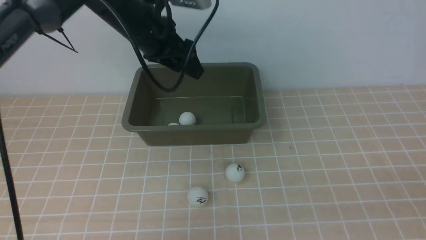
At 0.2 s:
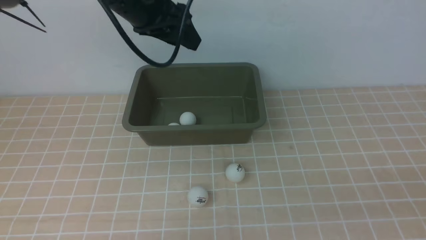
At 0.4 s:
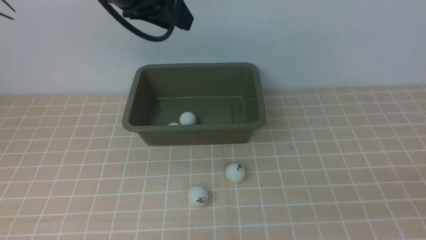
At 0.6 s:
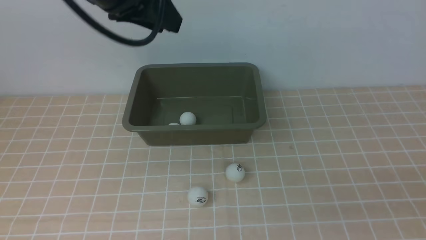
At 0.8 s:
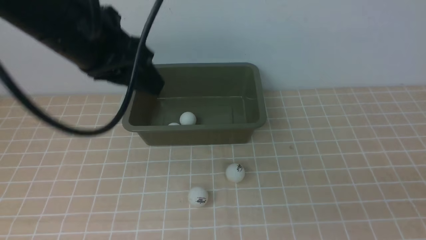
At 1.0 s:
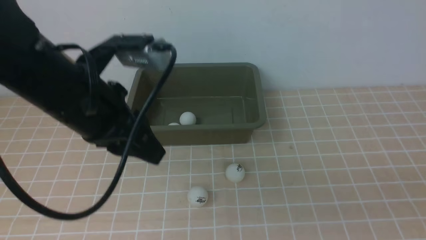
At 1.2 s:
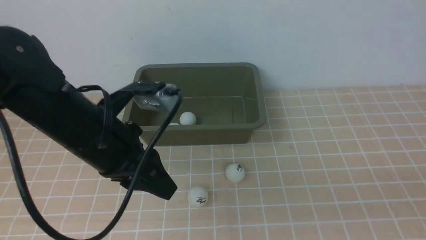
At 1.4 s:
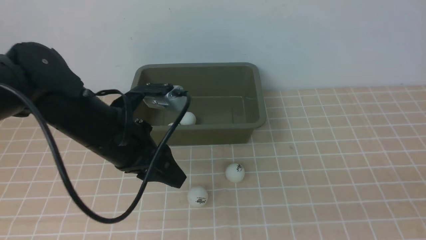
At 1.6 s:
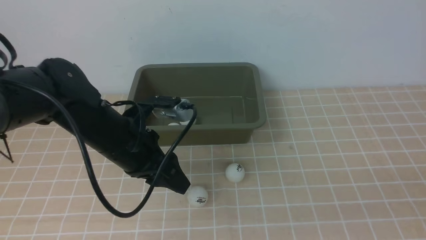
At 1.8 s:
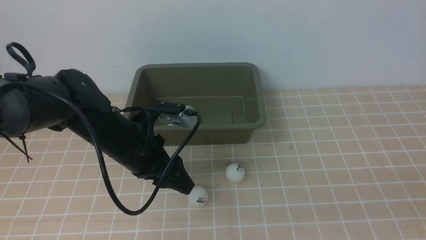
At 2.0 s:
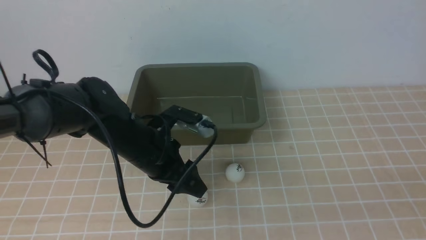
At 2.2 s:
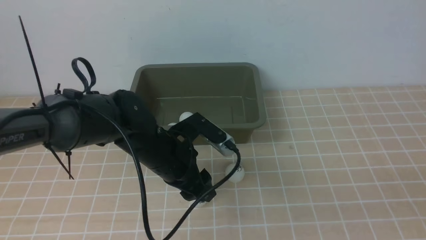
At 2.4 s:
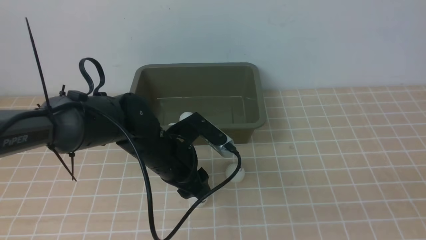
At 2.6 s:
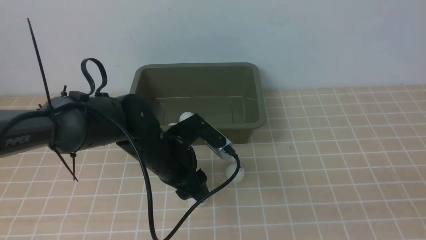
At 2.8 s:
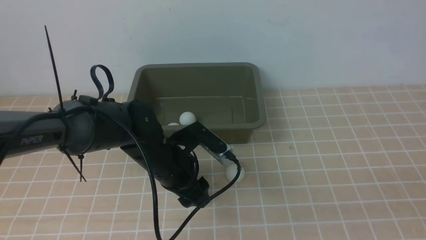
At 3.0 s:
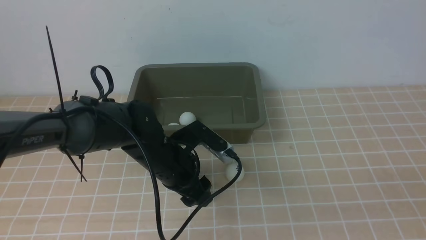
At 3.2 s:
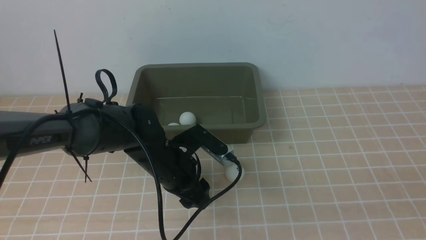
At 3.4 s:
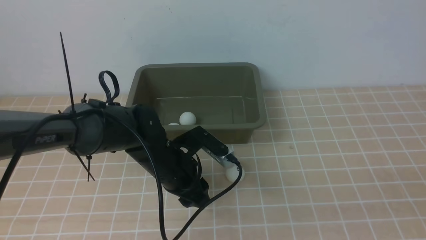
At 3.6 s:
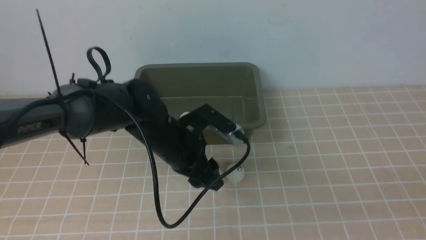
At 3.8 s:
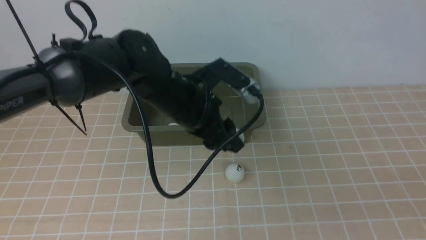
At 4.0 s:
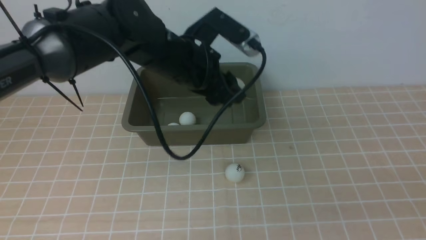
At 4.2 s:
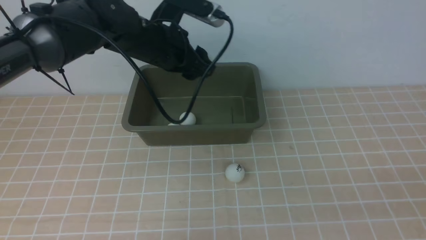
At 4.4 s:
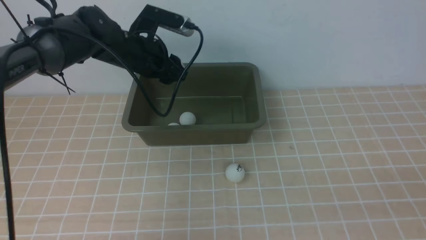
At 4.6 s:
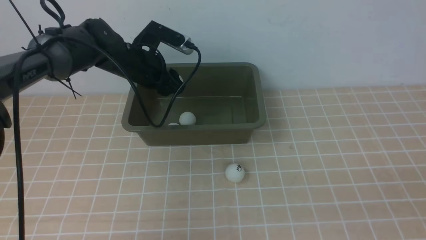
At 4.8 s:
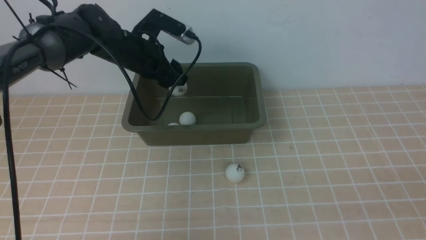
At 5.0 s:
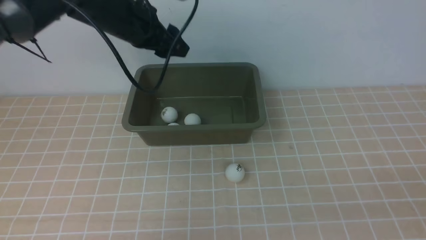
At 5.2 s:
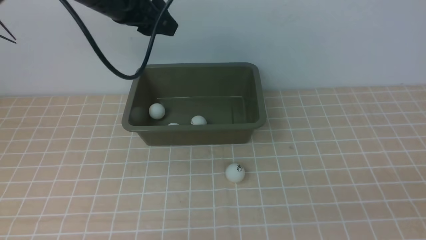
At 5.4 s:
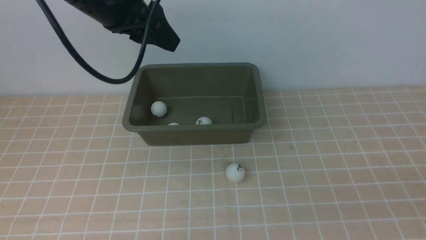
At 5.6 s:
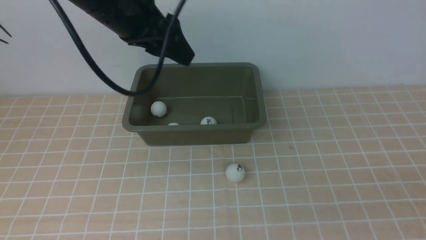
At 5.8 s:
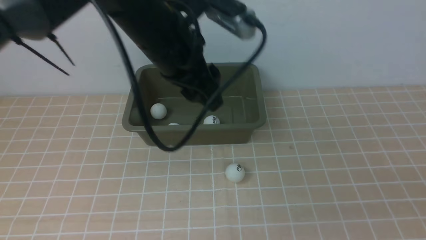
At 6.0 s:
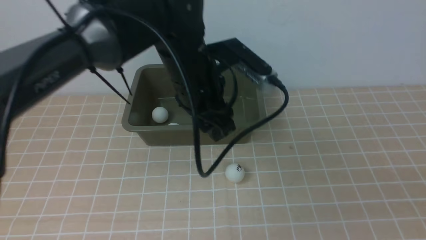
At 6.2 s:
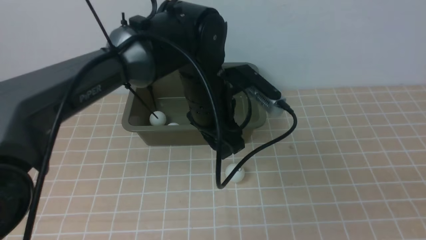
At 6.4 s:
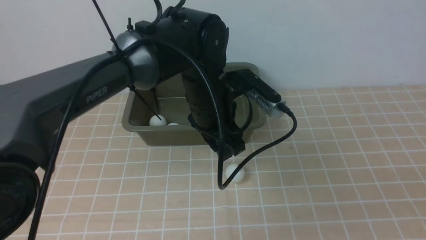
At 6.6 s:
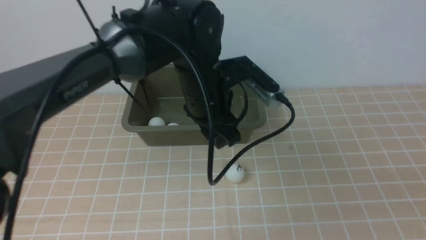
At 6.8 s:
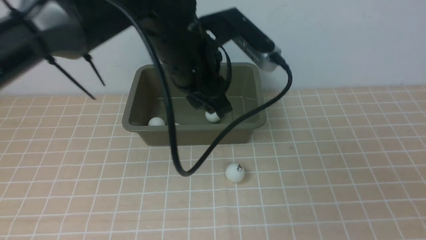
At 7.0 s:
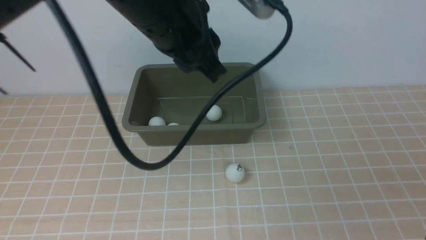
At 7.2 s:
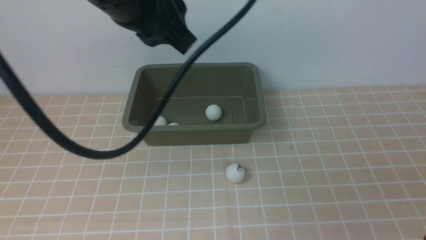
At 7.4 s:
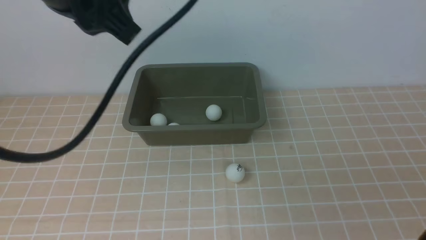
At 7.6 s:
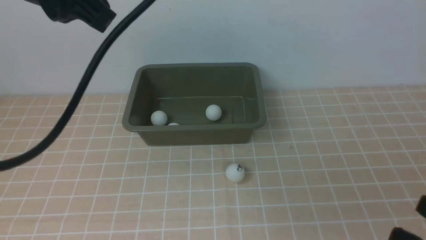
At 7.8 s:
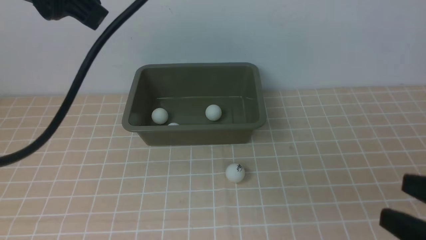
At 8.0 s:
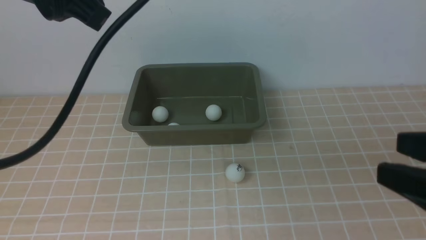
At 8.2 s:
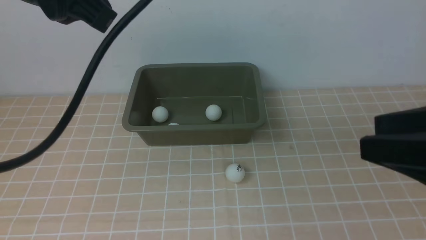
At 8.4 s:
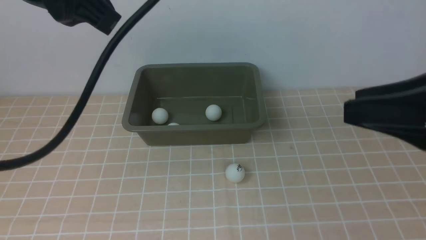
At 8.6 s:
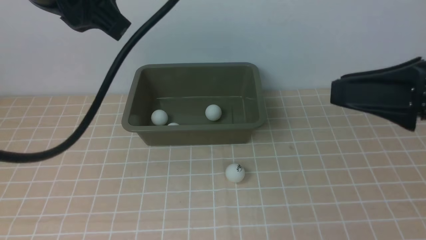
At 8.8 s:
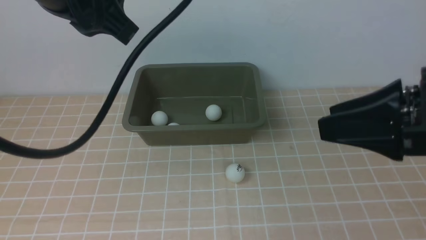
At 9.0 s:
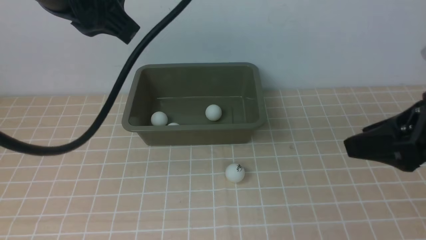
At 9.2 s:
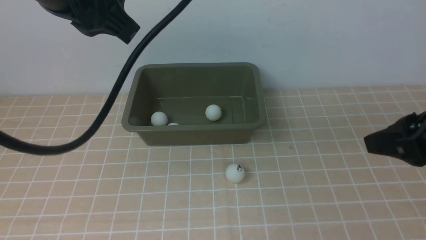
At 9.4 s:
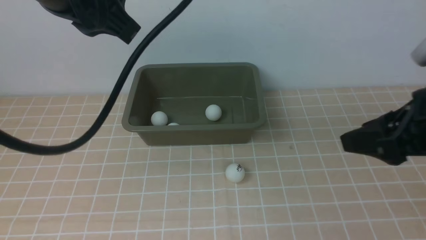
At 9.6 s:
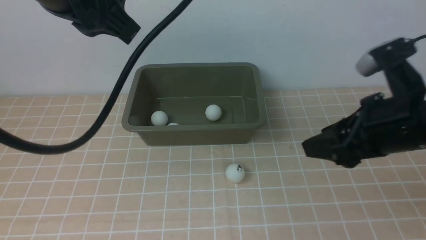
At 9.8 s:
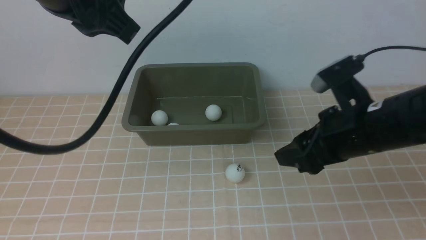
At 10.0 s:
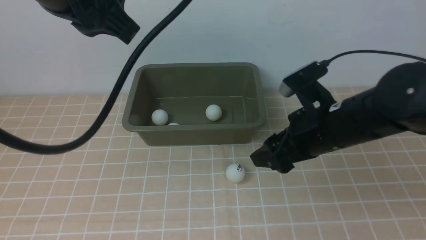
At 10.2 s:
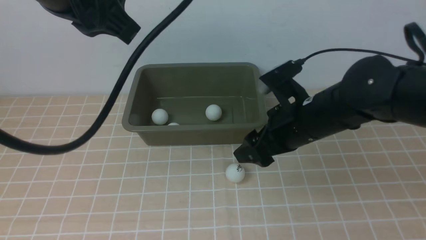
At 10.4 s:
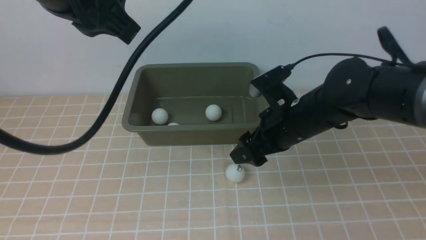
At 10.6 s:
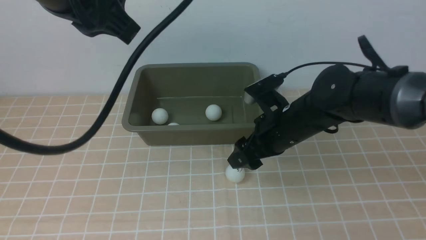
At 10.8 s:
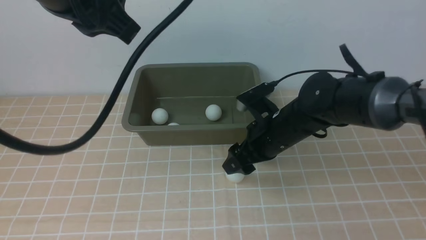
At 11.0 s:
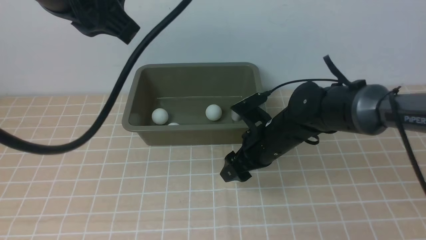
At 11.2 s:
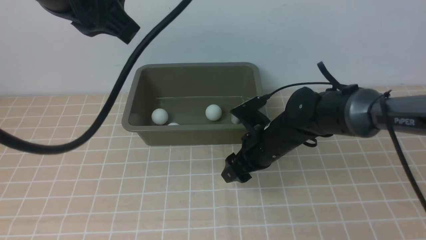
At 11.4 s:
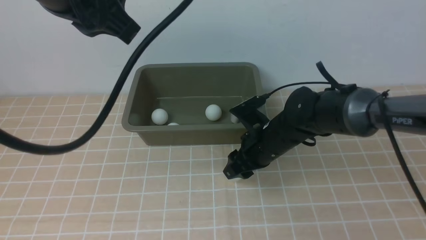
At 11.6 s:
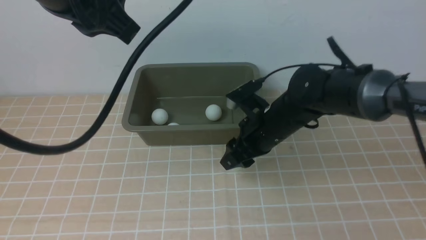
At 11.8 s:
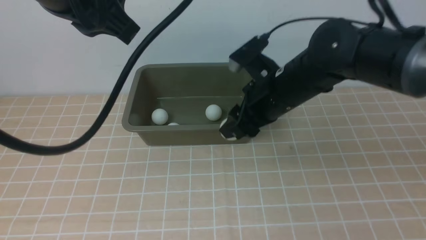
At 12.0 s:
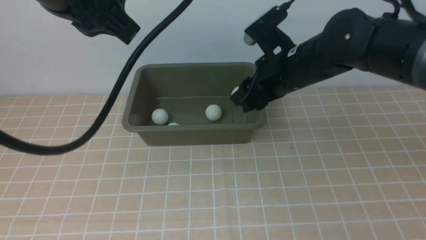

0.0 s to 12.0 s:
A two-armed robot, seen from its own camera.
Step, 0.0 to 3.8 s: use the left arm to clamp the table tennis ball closest to it.
Step, 4.0 to 5.2 s: use the left arm to put the table tennis ball into the box.
Step, 5.4 to 11.8 s: use the right arm to clamp the table tennis ball closest to it.
0.0 to 1.6 s: The left gripper goes roughly 15 cm backward and downward, and closes, then reopens.
1.6 to 3.0 s: The left gripper moves downward and to the right, approximately 10 cm.
3.0 to 4.4 s: The left gripper travels forward and upward by roughly 15 cm, and closes.
4.4 to 6.0 s: The left gripper goes some 15 cm backward and to the right, and reaches some 15 cm upward, then returns.
6.0 to 7.6 s: The left gripper shifts approximately 25 cm upward, to the left and backward, and closes up.
7.6 to 9.0 s: The right gripper heads forward, covering approximately 15 cm.
9.0 to 10.4 s: The right gripper is displaced to the left, forward and downward by about 20 cm, and opens.
10.4 to 12.0 s: The right gripper heads forward, covering roughly 5 cm, and closes up.

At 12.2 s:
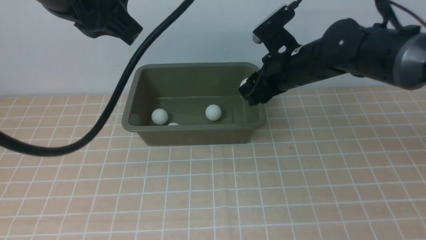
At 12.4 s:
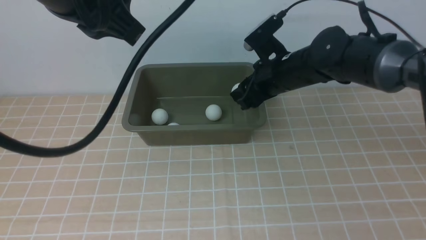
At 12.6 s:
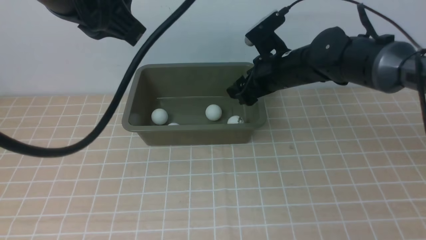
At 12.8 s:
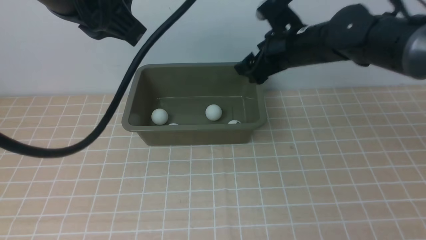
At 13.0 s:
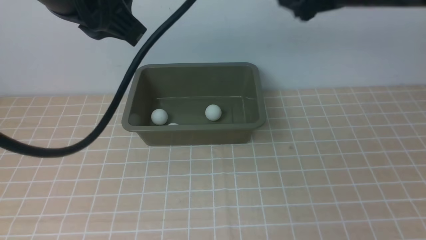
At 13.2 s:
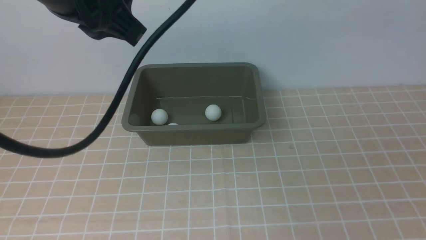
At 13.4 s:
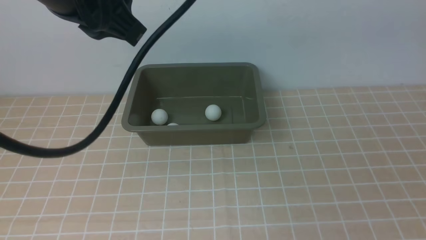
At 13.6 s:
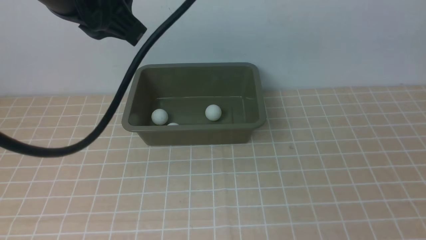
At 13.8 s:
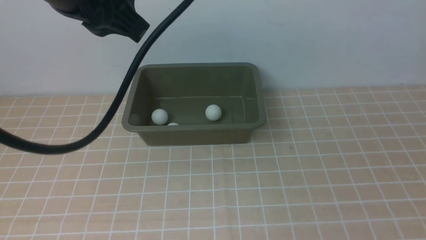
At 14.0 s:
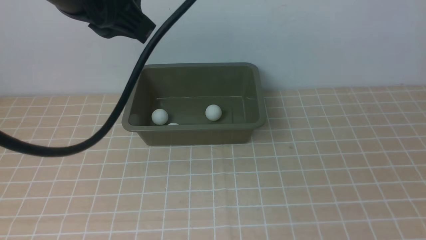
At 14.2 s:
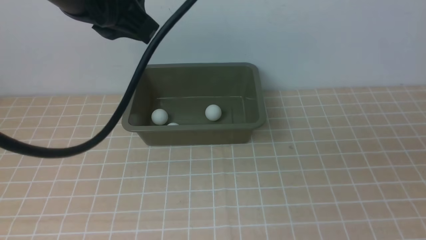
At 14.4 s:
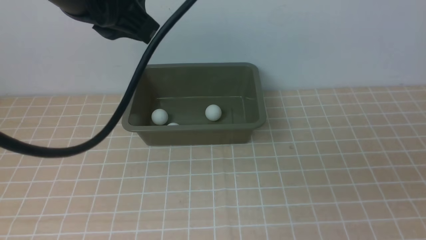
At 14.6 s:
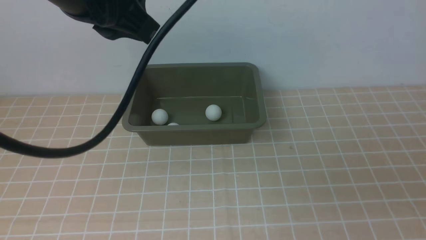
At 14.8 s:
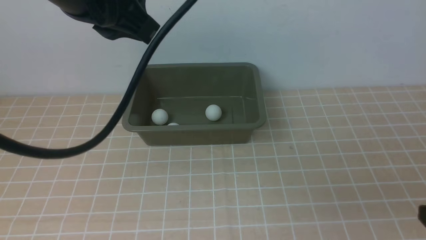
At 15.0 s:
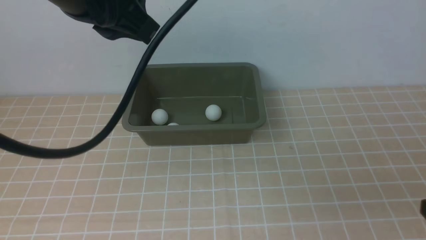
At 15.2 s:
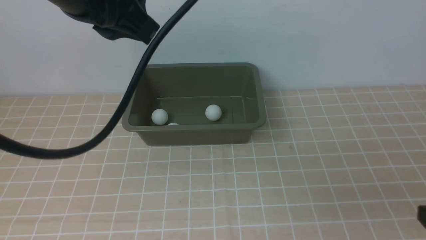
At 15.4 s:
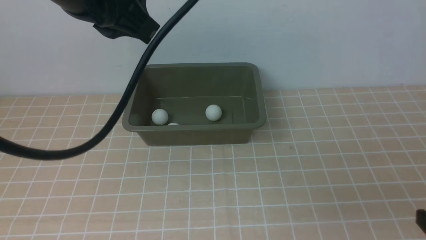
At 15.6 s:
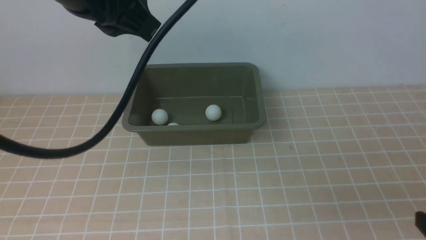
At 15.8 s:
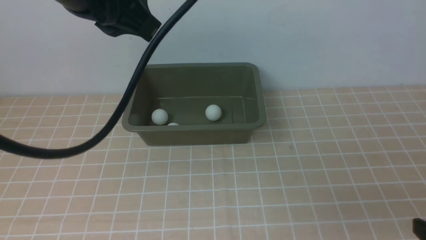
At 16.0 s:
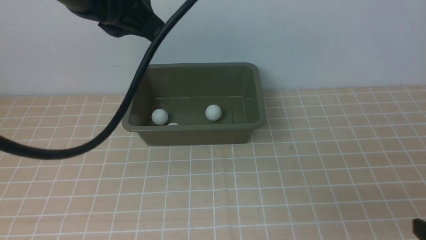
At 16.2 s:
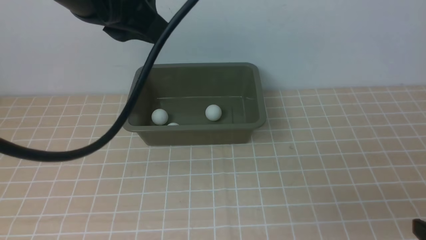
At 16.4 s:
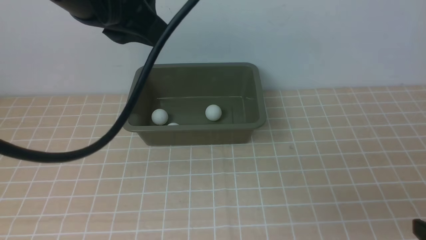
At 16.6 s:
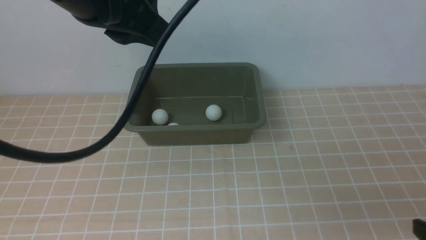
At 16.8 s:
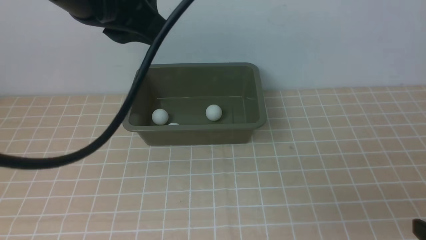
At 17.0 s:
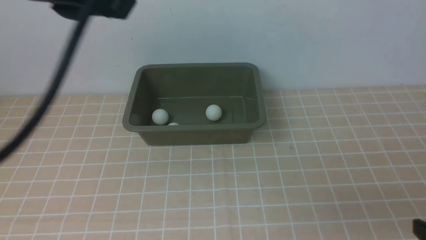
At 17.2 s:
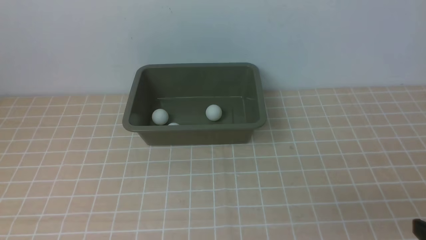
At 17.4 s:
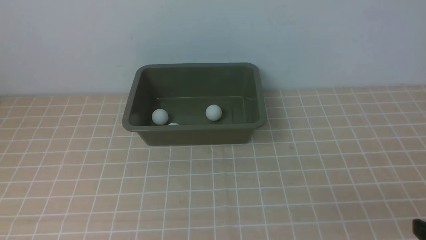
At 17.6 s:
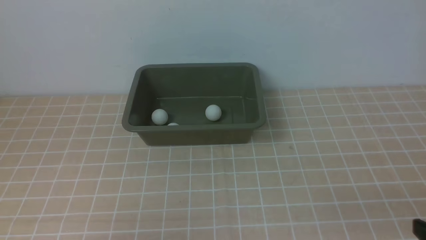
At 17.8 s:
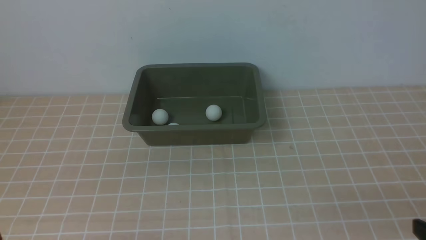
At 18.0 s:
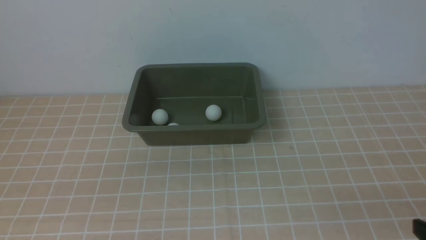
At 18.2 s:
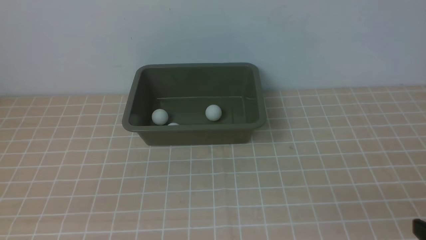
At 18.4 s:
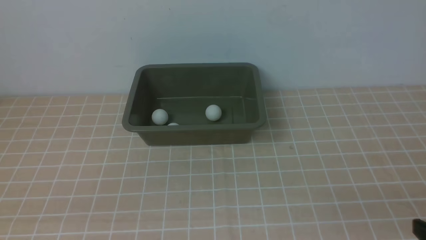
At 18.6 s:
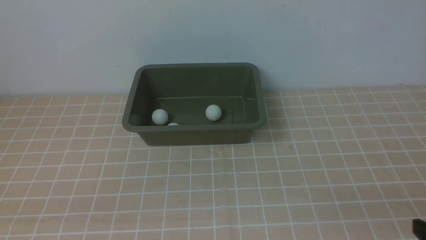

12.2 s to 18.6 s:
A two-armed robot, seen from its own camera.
Step, 12.2 to 13.0 s: use the right arm to put the table tennis ball into the box.
12.2 to 13.8 s: The right gripper shifts approximately 40 cm backward, upward and to the right, and opens up.
13.8 to 15.4 s: The right gripper moves downward, approximately 25 cm.
15.4 to 17.0 s: The left gripper travels backward by some 5 cm.
17.0 to 18.6 s: The left gripper heads downward and backward, covering some 30 cm.
